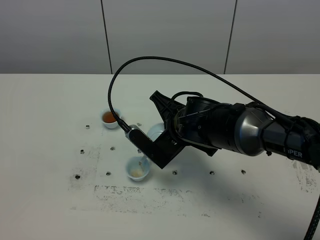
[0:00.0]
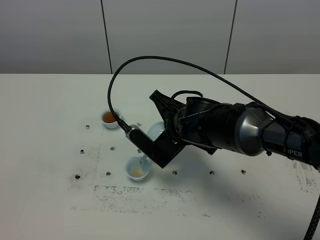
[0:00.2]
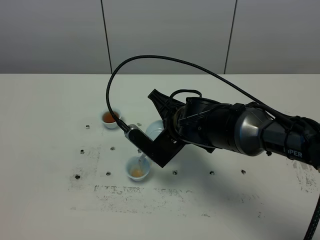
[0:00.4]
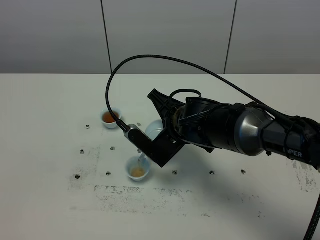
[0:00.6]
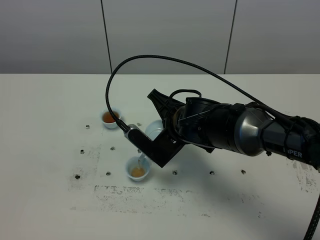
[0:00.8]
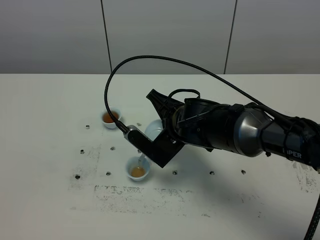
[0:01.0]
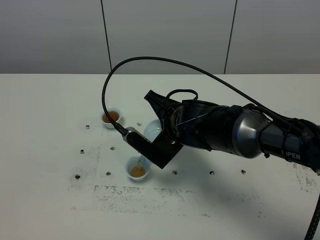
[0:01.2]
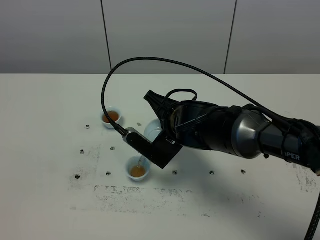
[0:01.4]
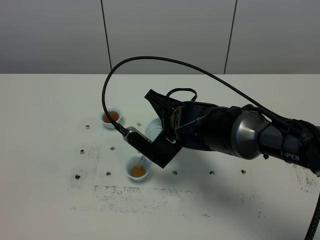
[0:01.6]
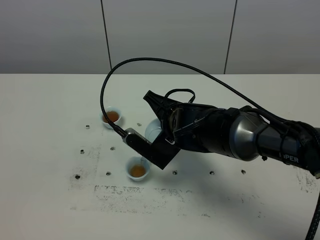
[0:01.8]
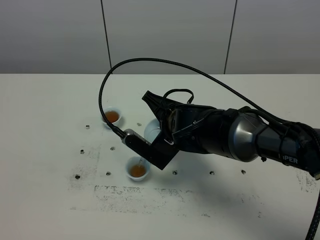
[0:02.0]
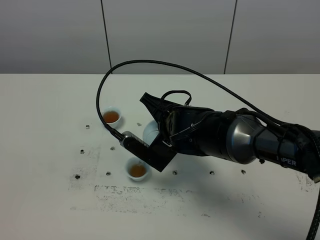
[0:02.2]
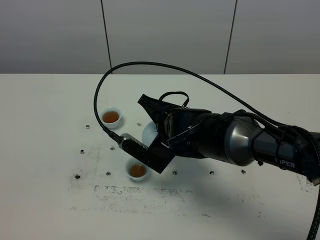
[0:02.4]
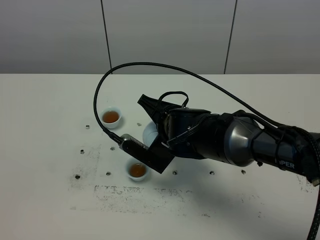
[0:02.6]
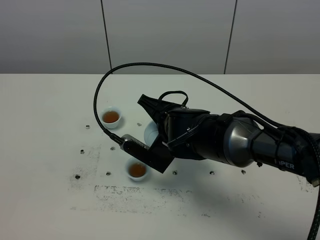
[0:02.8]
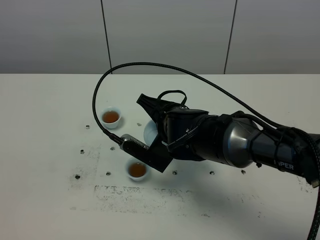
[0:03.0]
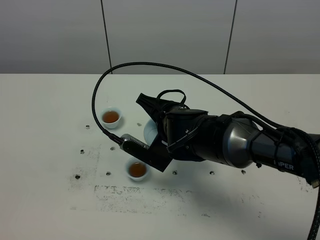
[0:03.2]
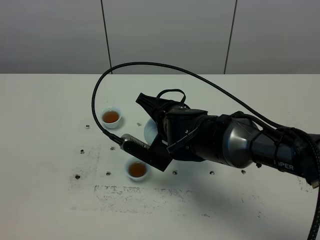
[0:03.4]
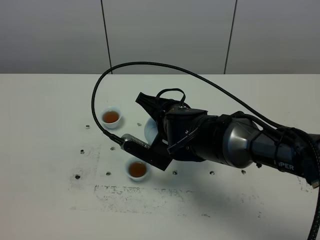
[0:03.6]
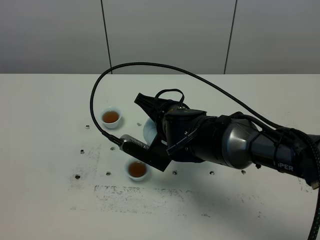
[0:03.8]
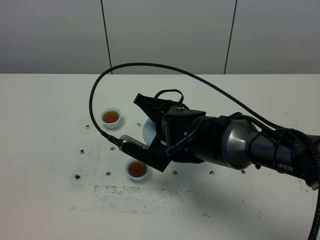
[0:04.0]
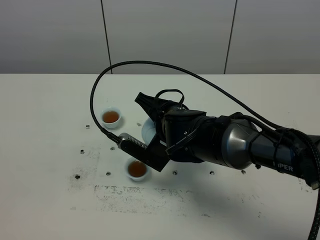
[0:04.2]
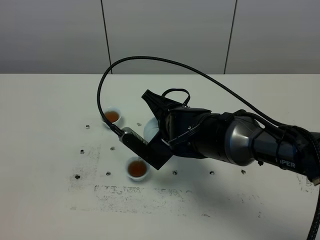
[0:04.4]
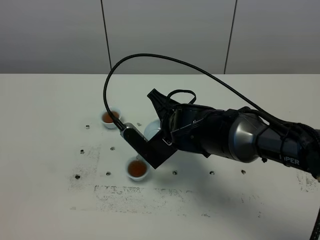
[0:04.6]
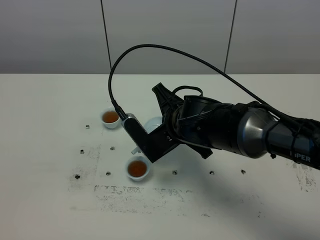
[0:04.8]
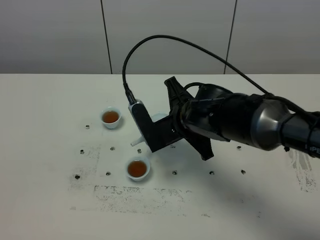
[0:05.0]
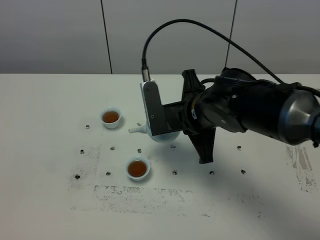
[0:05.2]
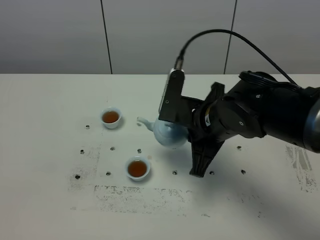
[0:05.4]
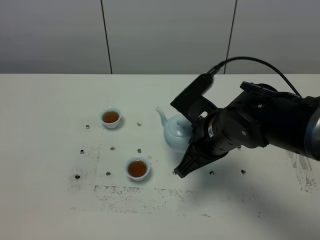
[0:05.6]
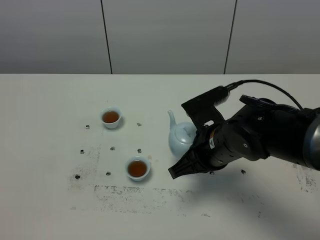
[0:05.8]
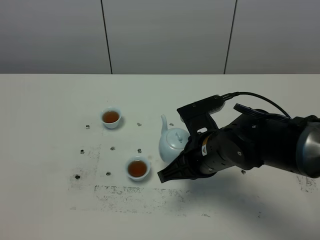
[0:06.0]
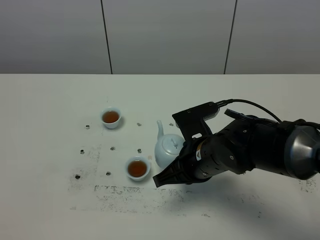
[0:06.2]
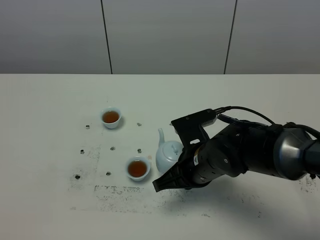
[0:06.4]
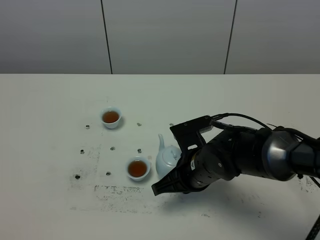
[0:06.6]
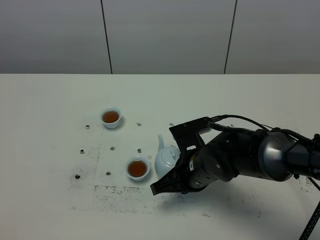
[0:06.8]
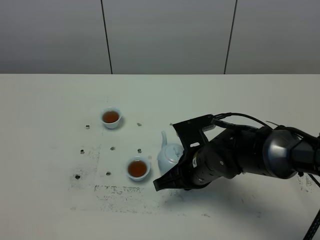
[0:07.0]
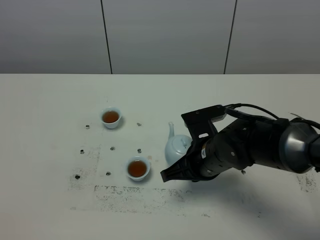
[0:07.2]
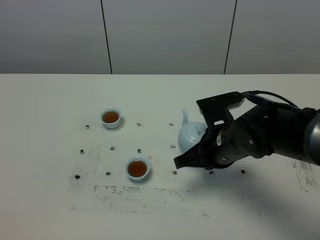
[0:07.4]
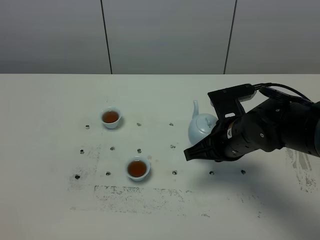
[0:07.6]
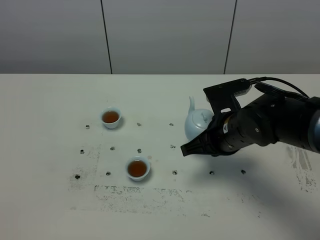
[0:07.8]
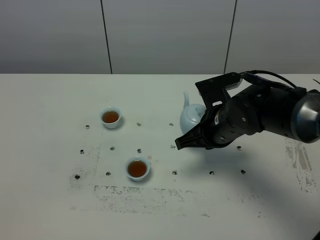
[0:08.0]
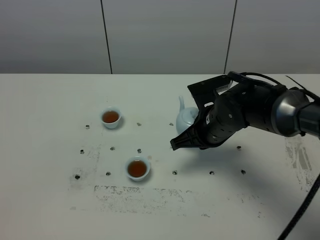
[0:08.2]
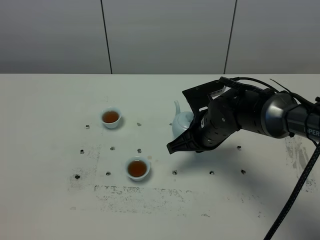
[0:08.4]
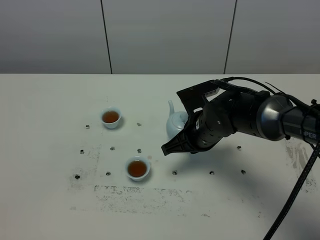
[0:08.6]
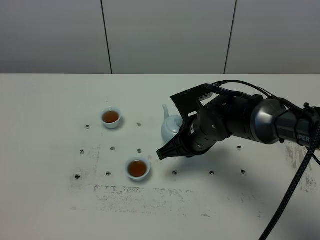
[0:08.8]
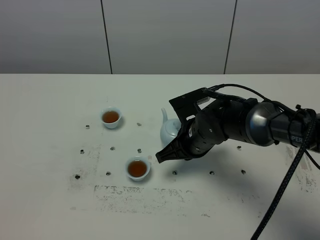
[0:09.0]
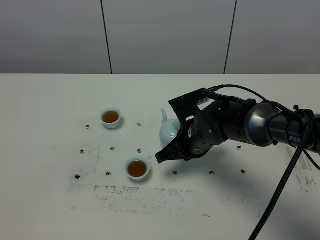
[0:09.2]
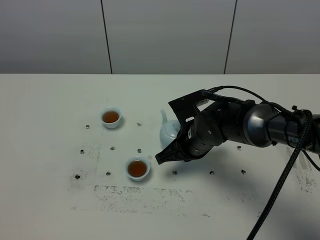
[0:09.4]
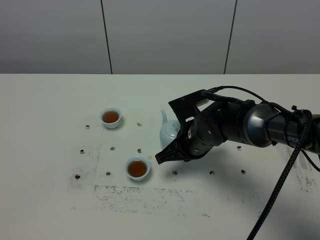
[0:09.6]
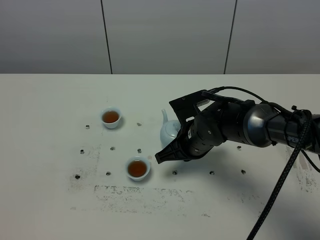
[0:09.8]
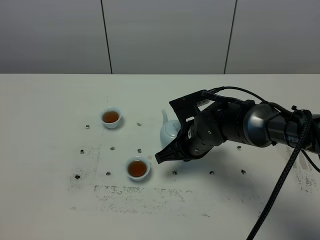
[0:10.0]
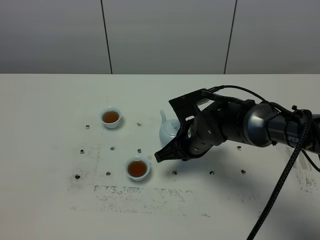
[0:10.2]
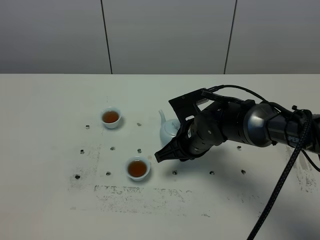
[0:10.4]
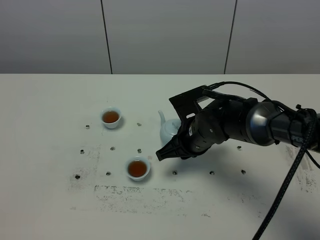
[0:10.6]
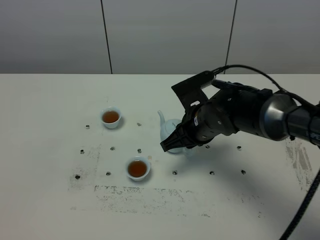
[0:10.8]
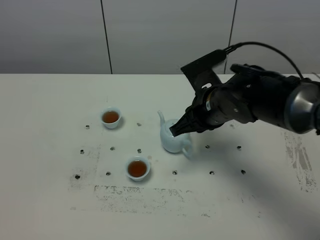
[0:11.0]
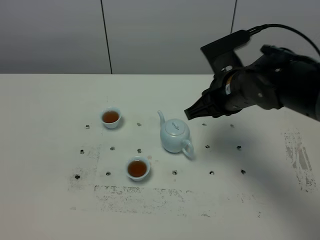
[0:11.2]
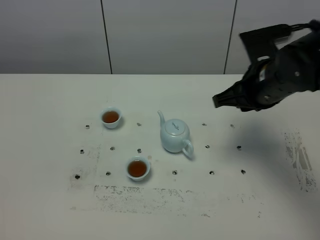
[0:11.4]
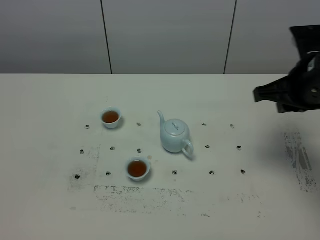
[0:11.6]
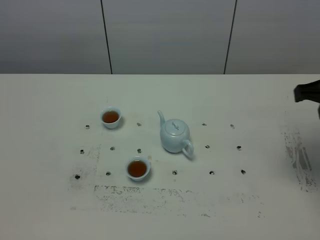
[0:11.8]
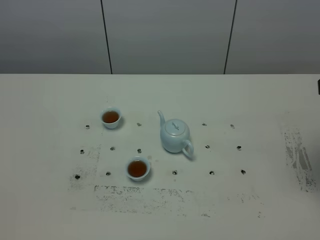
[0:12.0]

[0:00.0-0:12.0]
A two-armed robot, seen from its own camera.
Task of the whole recording: grasp the blue porcelain teapot and pour the tea into the two blue porcelain teacups one by one, put the blue porcelain teapot back in its original place.
Step, 0:00.0 to 0:04.6: Pour tea into the teacup with the right gripper.
0:00.0 to 0:04.4: The grippers stay close to where they were, moving slightly.
0:04.4 to 0:06.0: The right gripper shifts approximately 5 cm backward.
0:06.0 to 0:07.6: The right gripper moves some 5 cm.
0:07.6 to 0:09.0: The right gripper shifts some 10 cm to the left and downward.
0:09.0 to 0:10.4: The right gripper opens its fingers.
0:10.4 to 0:12.0: The right gripper moves upward, to the right and backward, about 35 cm.

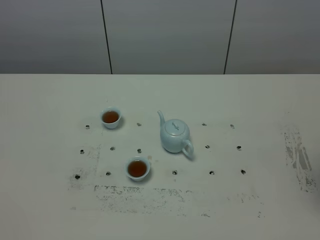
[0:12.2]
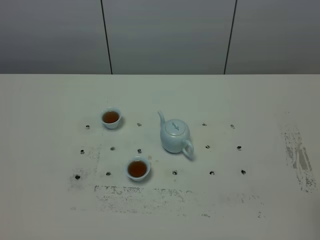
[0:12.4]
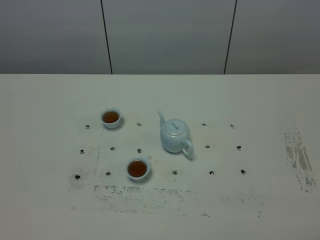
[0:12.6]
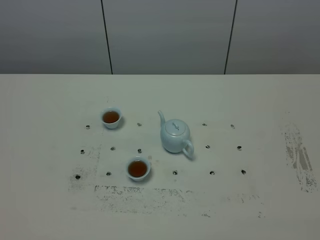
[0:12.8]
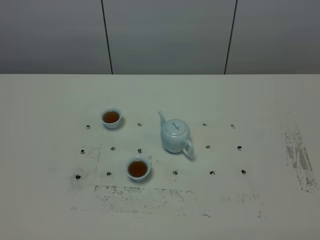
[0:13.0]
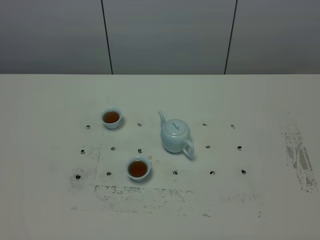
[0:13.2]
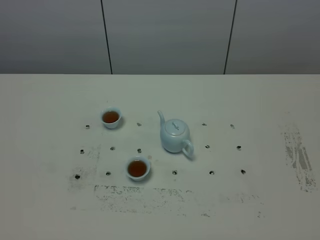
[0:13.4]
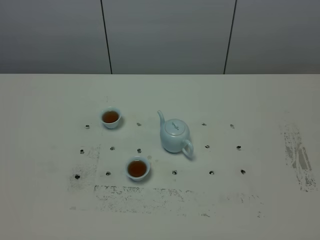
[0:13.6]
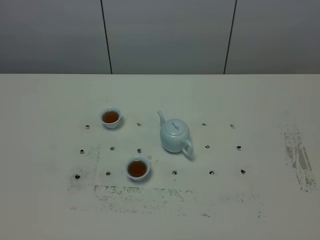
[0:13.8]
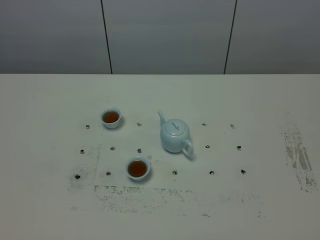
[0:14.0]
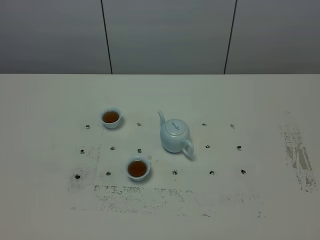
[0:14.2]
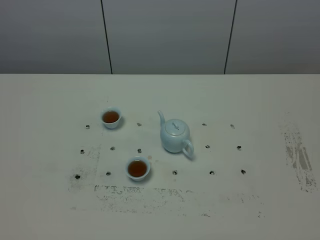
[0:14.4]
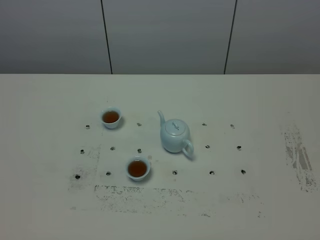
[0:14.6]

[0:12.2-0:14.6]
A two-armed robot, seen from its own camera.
Task of the whole recording: grasp the blue porcelain teapot and pour the tea into the two blue porcelain teacups one by one, put the blue porcelain teapot back in its original place.
0:13.4 to 0:14.6: Neither gripper changes place.
